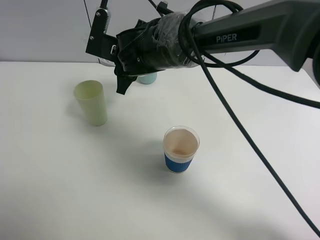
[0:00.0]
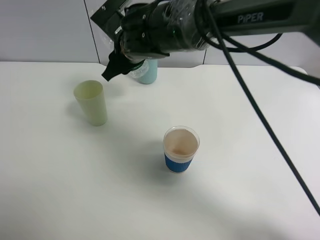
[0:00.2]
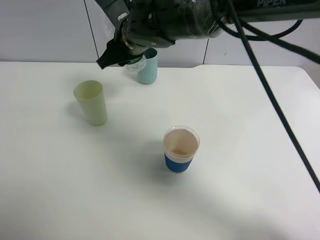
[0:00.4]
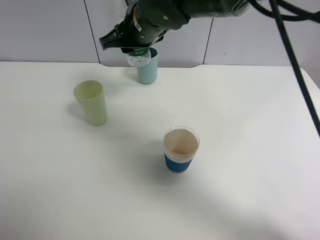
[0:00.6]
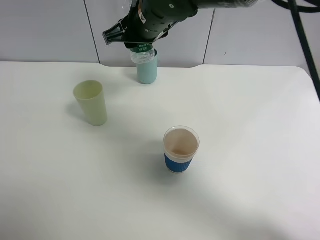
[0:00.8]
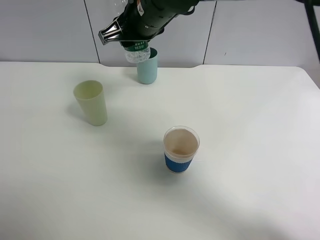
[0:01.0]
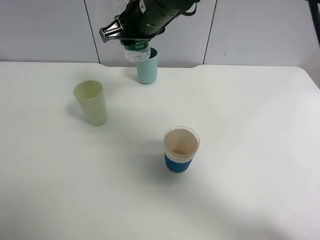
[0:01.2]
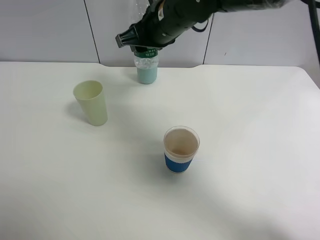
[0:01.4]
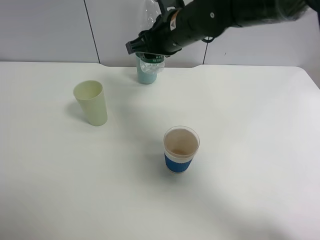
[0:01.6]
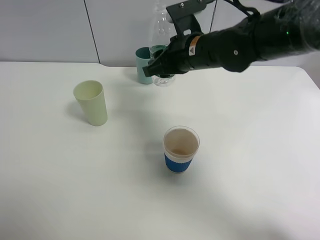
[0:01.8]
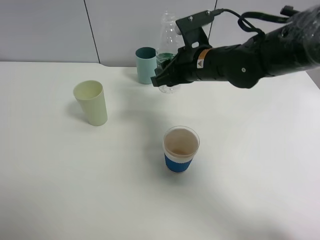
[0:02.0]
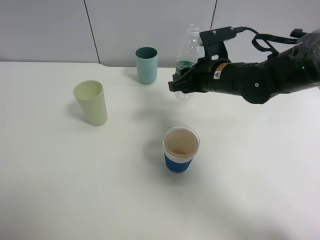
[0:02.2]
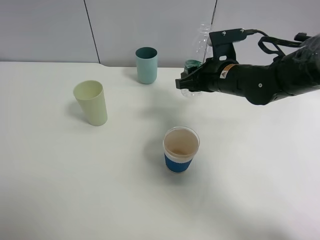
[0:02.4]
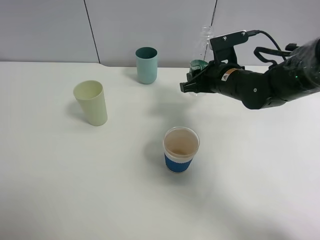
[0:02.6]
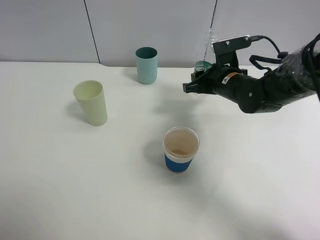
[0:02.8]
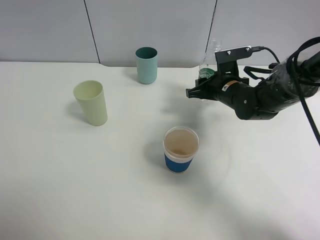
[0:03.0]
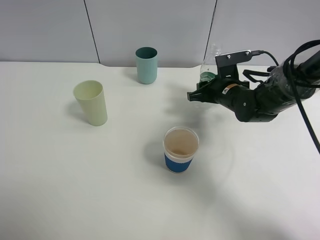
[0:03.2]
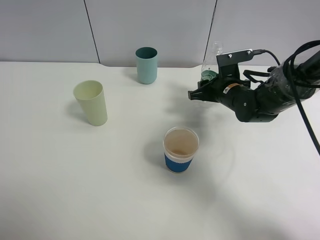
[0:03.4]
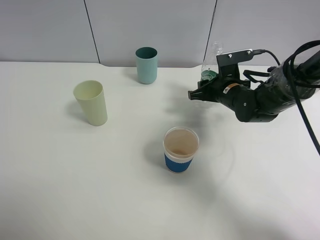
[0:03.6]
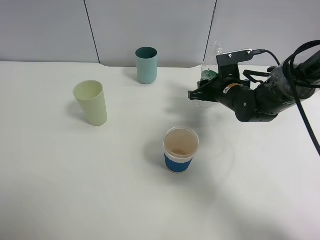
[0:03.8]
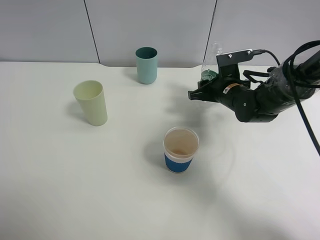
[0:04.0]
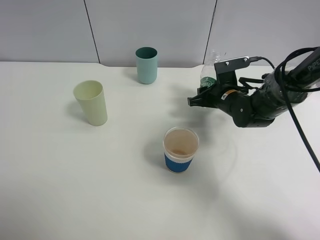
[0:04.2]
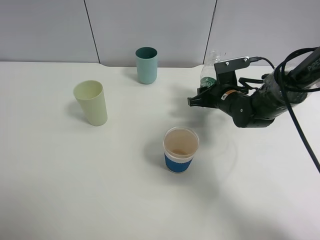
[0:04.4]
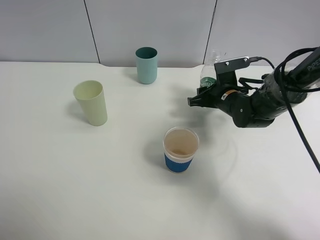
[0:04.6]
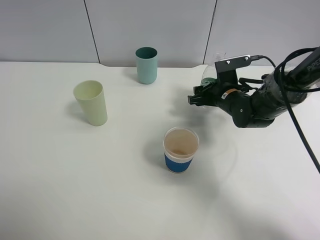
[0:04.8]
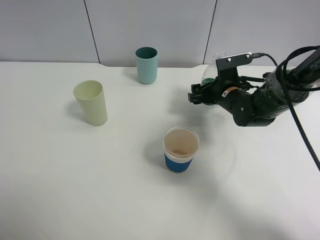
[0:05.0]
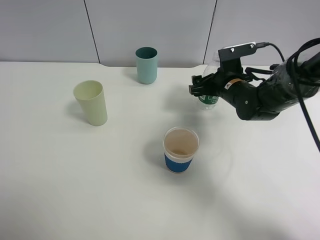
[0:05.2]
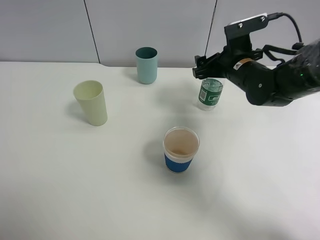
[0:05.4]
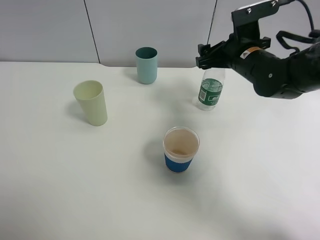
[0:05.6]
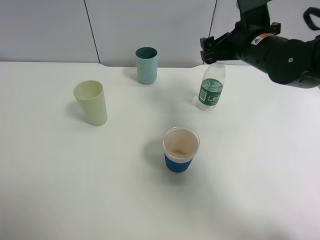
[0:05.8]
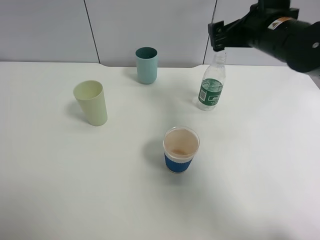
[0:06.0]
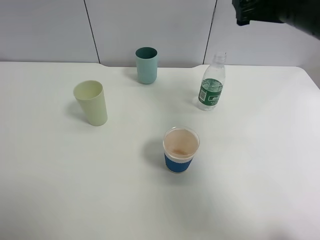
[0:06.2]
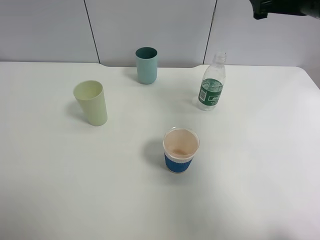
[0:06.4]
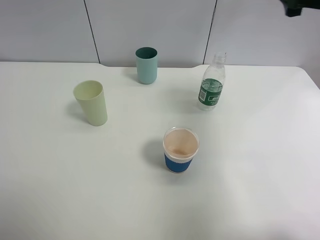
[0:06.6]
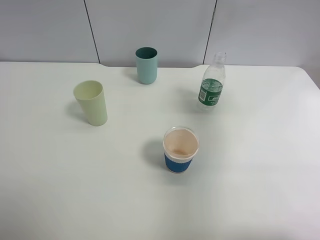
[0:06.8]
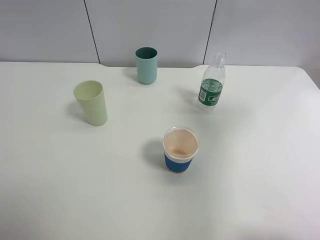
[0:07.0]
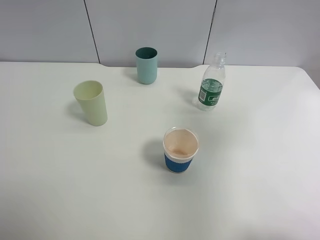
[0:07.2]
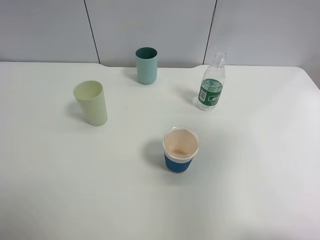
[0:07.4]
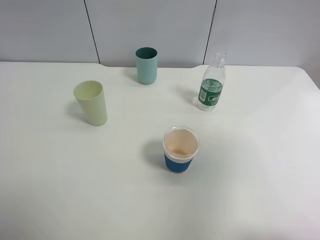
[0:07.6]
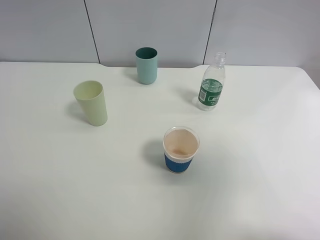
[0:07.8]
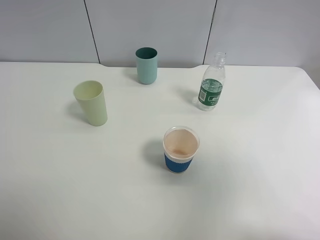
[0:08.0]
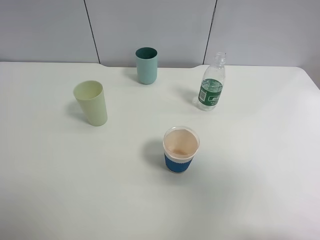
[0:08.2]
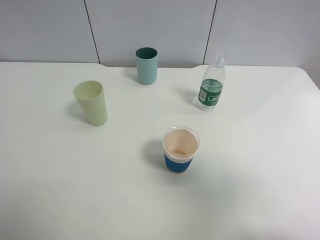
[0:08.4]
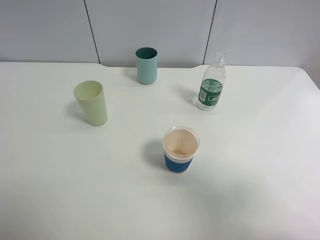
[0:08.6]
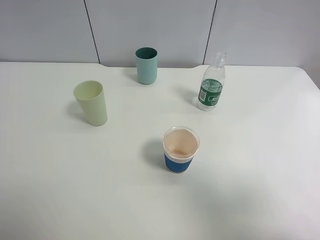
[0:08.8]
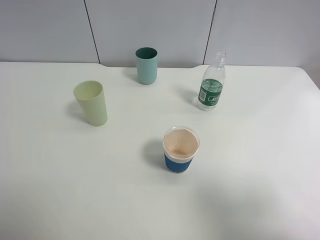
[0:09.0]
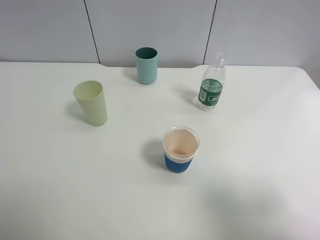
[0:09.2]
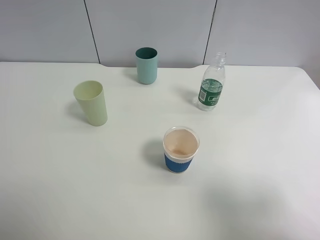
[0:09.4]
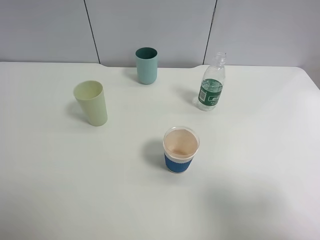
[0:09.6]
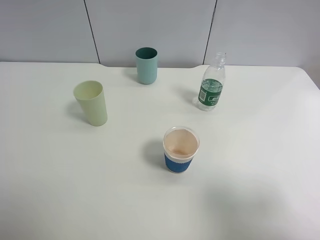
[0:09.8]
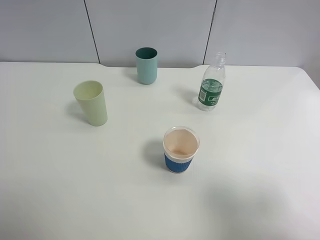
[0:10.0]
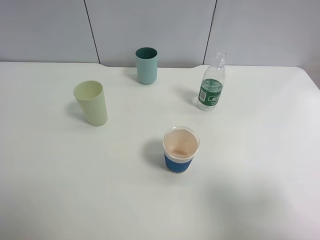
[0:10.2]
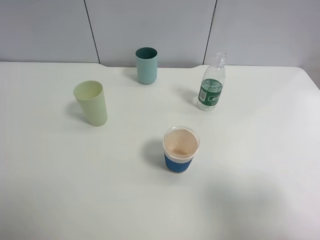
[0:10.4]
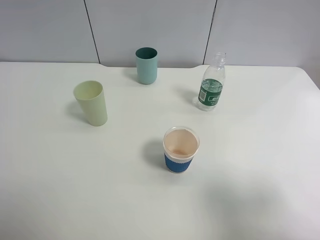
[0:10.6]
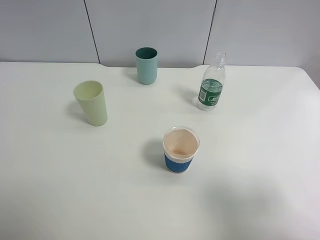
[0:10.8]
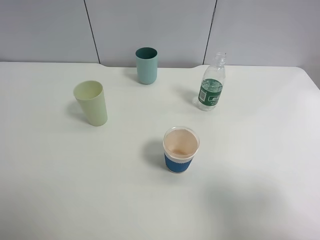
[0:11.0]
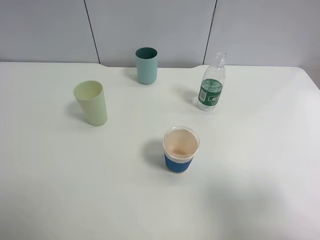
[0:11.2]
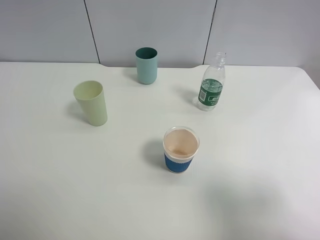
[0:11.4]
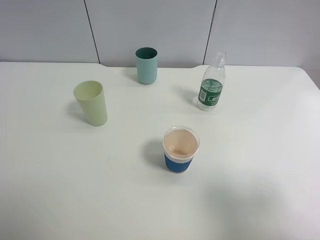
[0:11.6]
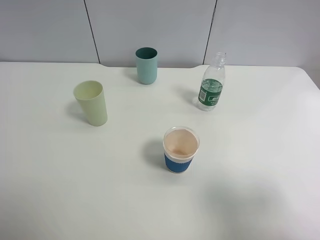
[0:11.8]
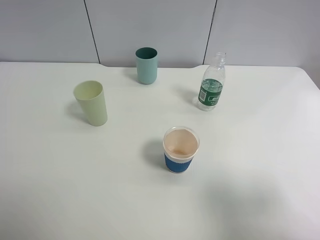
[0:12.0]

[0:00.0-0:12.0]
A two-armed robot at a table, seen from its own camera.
Task of the whole recording: use a clamp to hold the bottle of the drink, pour the beverage into a random cup, then clamp the cup containing the drink and pour the drink into another random cup.
Step, 0:00.0 to 0:05.0: Place the water bottle on the table with right gripper.
0:00.0 to 0:01.6: The right gripper goes approximately 10 cm to the right and upward.
0:01.6 to 0:03.0: The right gripper shifts roughly 20 cm downward and to the right.
0:03.0 to 0:04.4: The grippers stay close to where they were, moving slightly.
0:04.4 to 0:06.0: The right gripper is displaced upward by some 20 cm, and opens.
0:06.0 to 0:07.6: The right gripper heads backward, upward and to the right, covering some 30 cm.
0:07.6 to 0:09.0: The right gripper shifts about 10 cm downward and backward.
0:10.4 to 0:12.0: The two grippers keep their place.

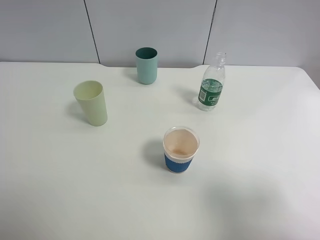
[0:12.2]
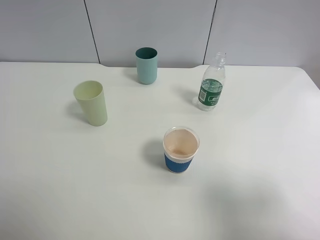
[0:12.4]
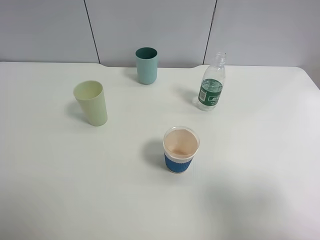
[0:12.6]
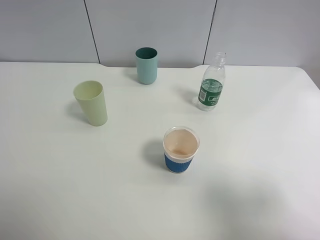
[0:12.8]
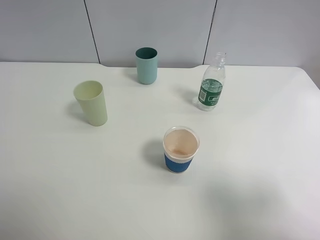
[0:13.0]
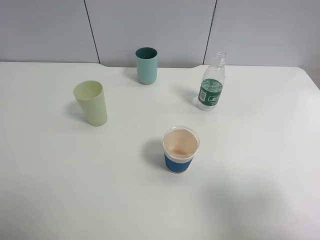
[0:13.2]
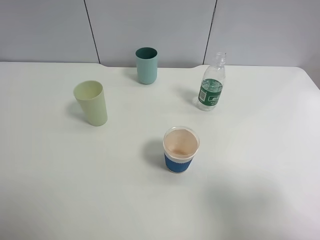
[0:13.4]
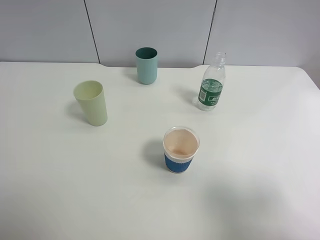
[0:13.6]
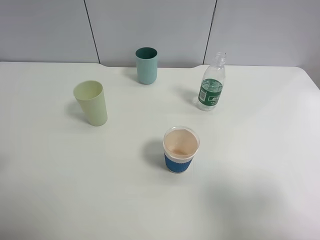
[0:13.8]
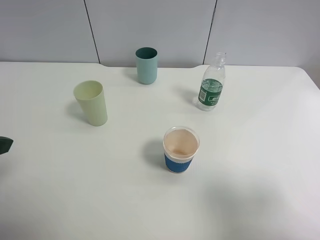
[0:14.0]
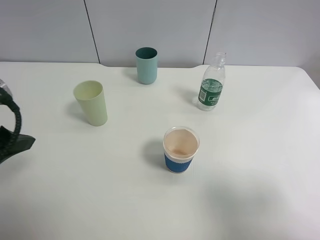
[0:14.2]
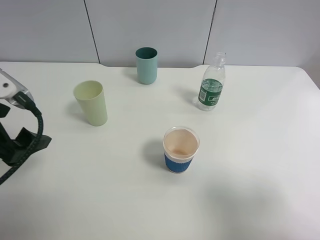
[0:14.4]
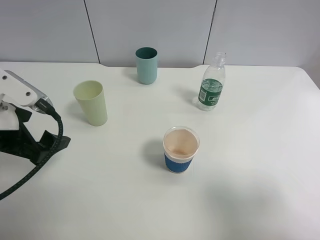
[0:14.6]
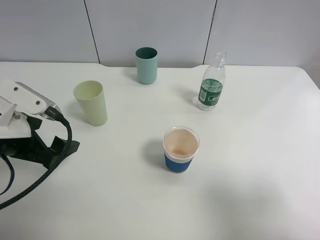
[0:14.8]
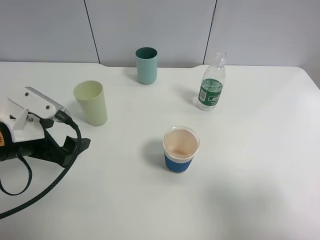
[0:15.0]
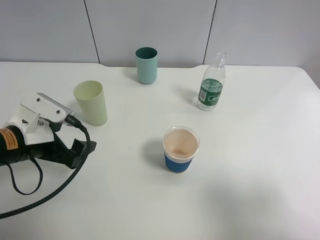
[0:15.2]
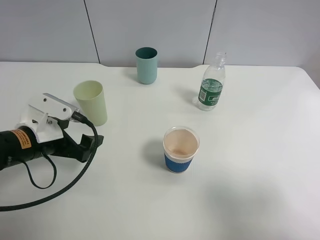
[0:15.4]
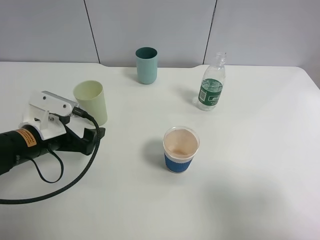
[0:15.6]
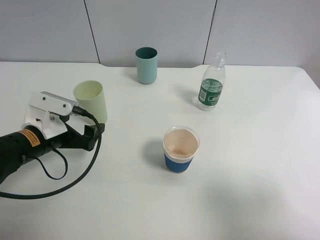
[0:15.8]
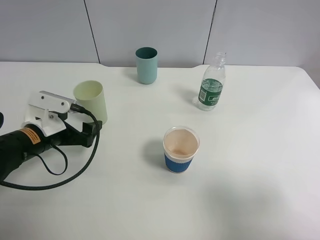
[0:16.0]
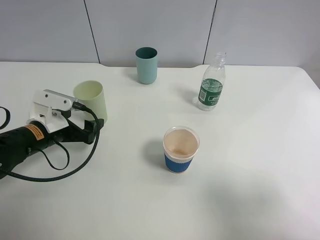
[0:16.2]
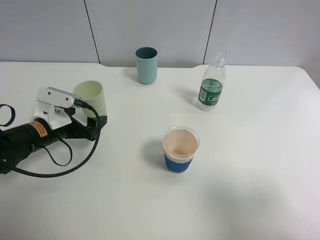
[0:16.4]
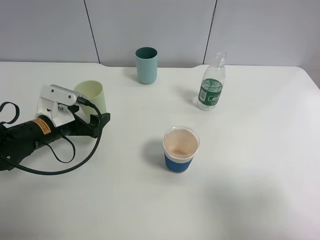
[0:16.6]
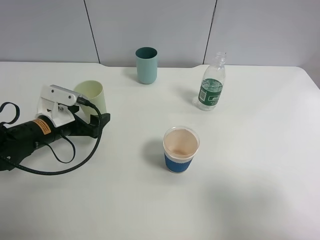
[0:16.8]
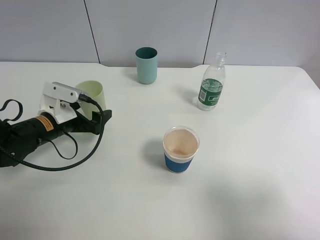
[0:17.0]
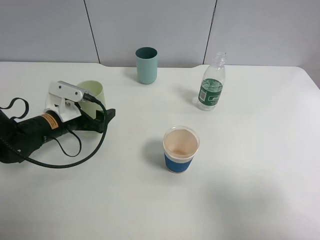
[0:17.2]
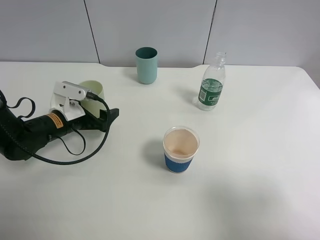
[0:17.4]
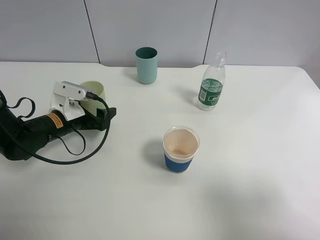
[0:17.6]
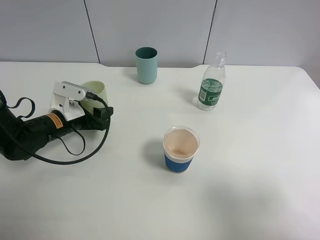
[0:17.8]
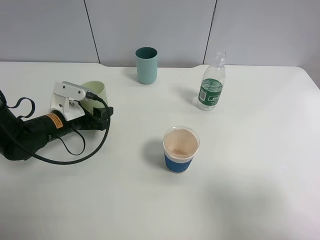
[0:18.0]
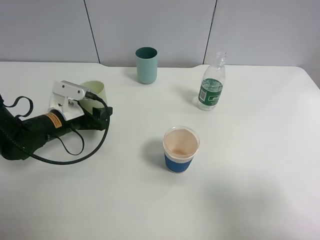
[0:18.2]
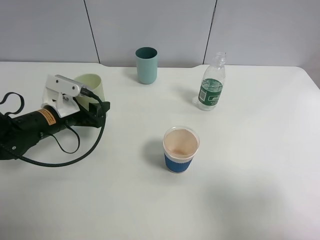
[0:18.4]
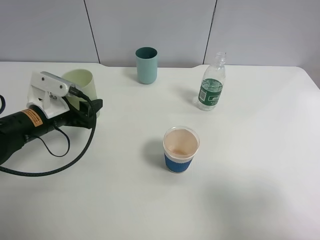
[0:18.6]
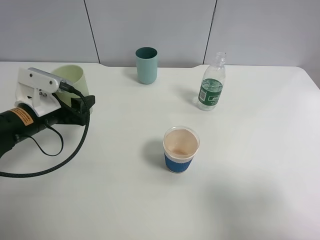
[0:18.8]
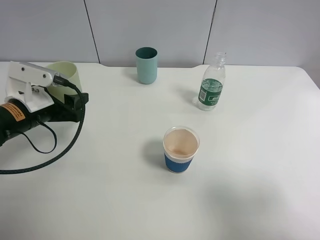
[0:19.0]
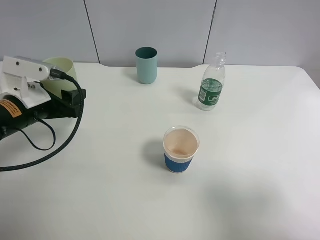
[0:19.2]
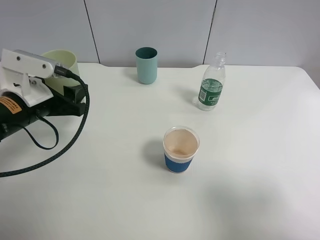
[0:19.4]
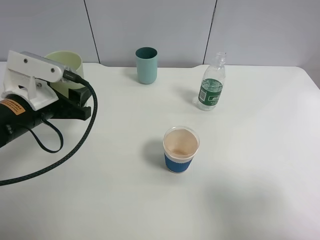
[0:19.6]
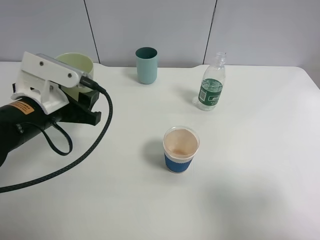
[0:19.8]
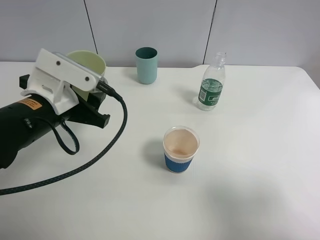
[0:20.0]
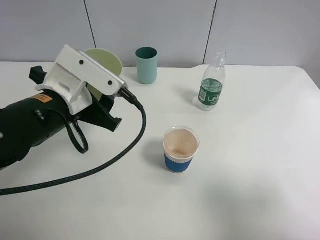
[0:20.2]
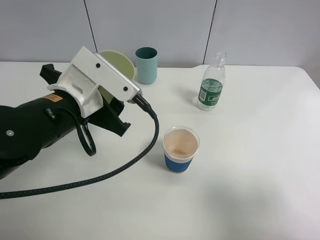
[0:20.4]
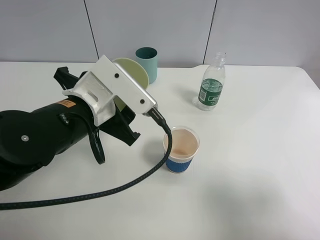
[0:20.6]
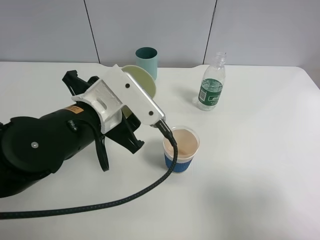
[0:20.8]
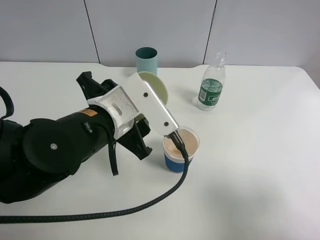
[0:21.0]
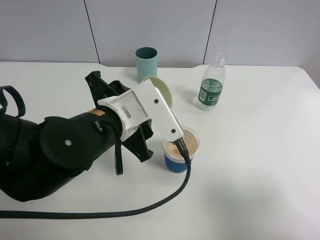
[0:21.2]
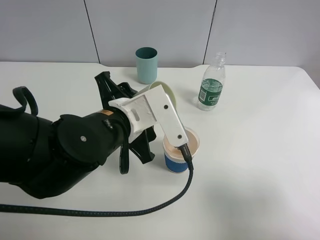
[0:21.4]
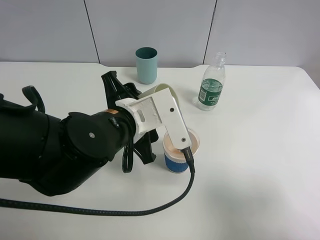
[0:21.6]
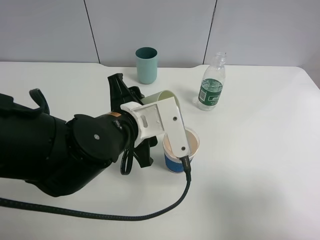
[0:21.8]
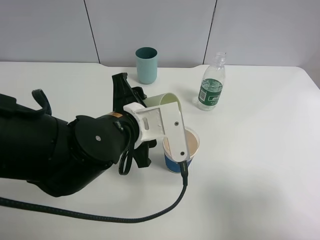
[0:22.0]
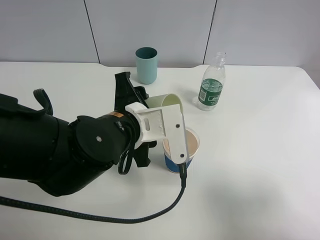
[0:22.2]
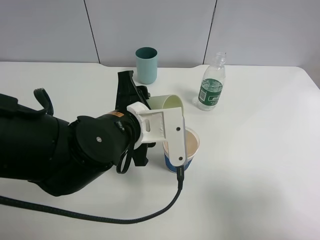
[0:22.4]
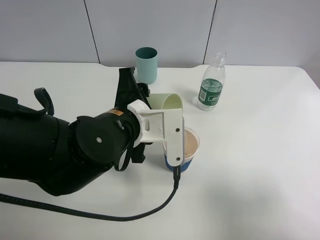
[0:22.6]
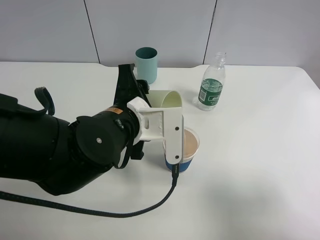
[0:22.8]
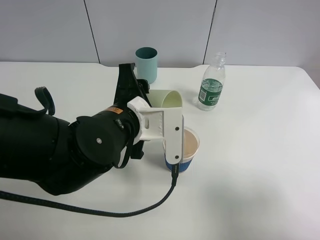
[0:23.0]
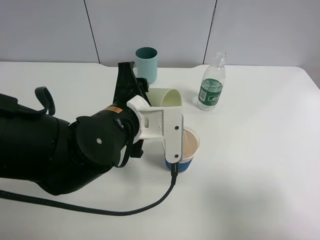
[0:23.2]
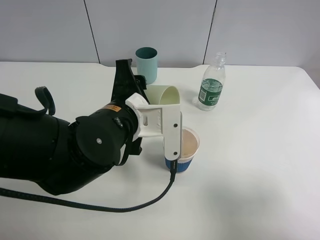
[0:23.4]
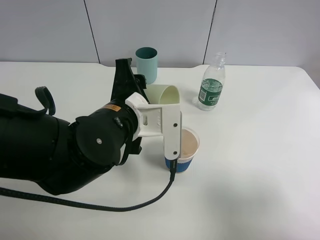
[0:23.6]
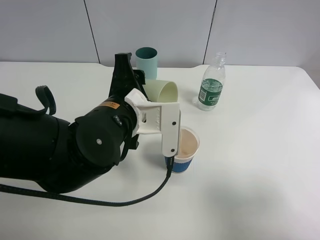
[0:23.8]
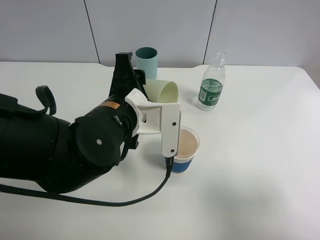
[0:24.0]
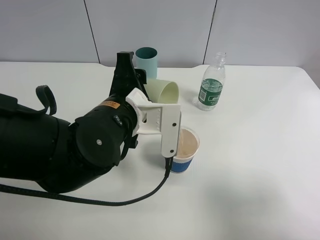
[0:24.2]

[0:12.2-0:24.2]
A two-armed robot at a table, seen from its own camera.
Task of the whole recording: use a clamp to hold the bottle of the drink, pour the beverage into a random cup, then clamp the cup containing the drink and pour the drink into another random cup.
Step, 0:12.2 to 0:18.4: Pick up the green plastic cup bottle with left gripper.
0:13.8 to 0:15.2: The left gripper travels downward, forward and to the right by approximately 20 cm.
0:15.2 to 0:16.6: The left gripper shifts roughly 10 cm forward and downward.
0:16.6 to 0:18.2: The left gripper closes up.
0:18.2 to 0:19.8: The left gripper goes about 15 cm upward and backward.
0:19.8 to 0:21.2: The left gripper moves to the right, some 10 cm.
0:22.6 to 0:24.2: The grippers stay close to where they were, moving slightly.
